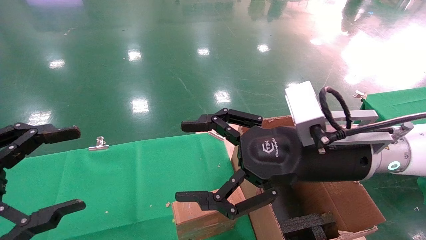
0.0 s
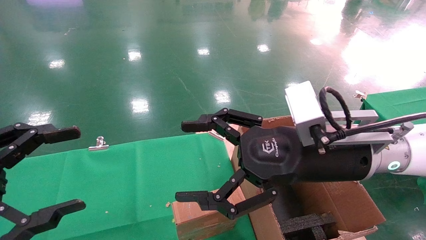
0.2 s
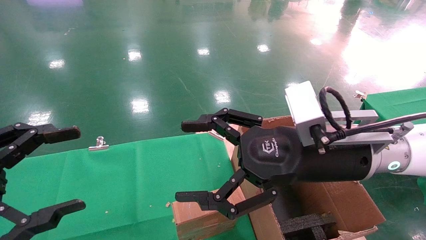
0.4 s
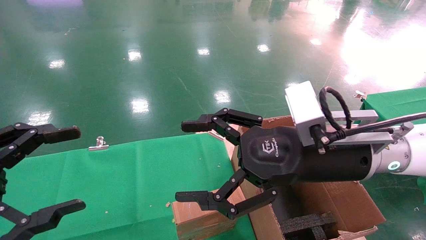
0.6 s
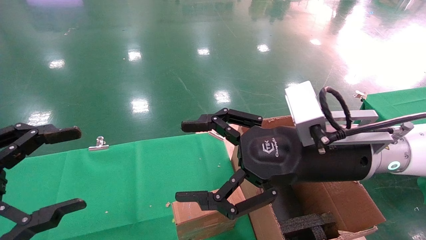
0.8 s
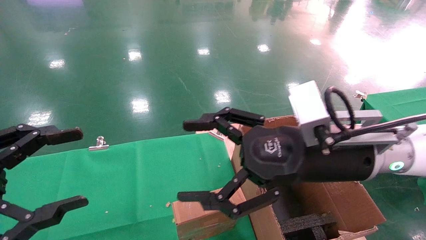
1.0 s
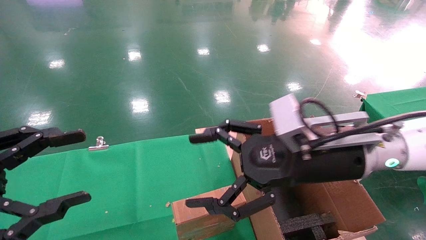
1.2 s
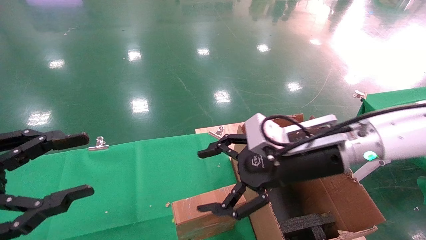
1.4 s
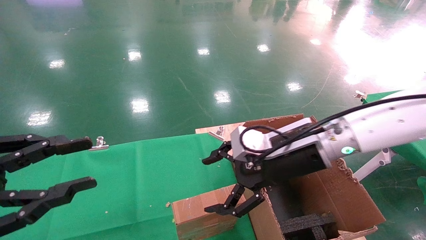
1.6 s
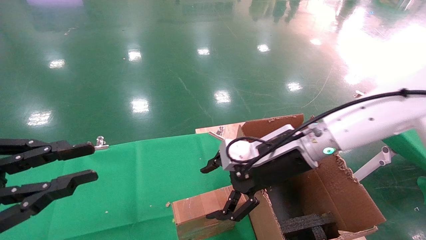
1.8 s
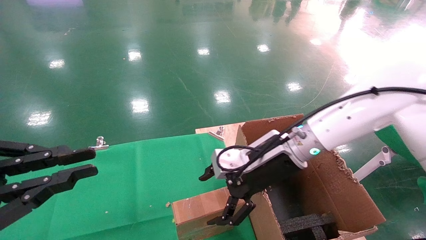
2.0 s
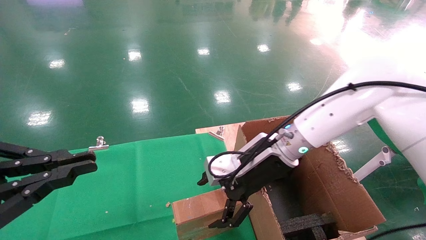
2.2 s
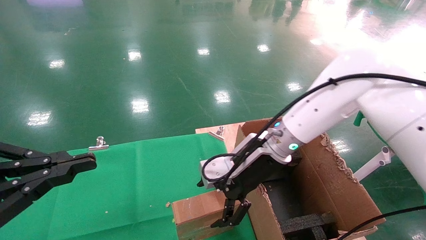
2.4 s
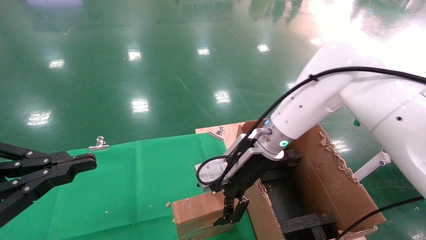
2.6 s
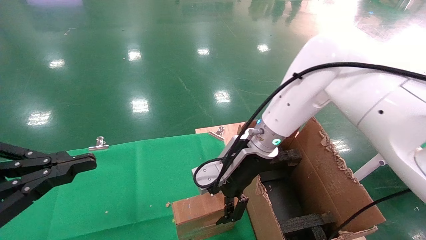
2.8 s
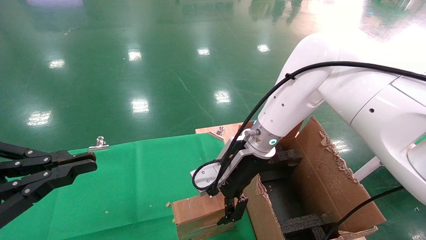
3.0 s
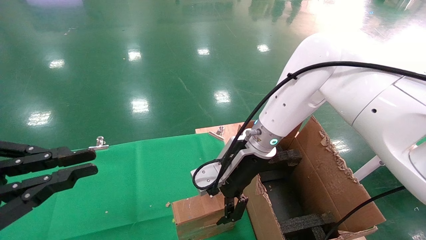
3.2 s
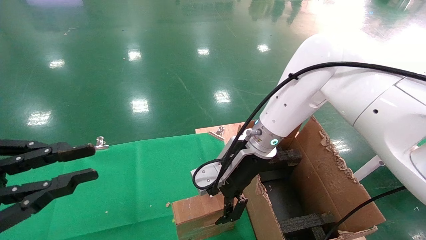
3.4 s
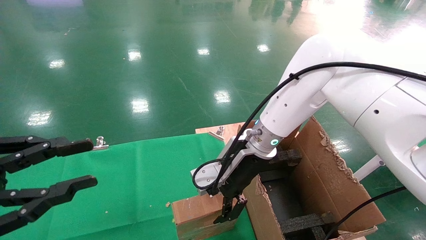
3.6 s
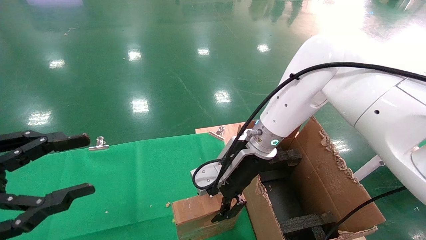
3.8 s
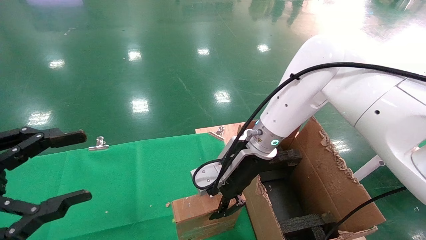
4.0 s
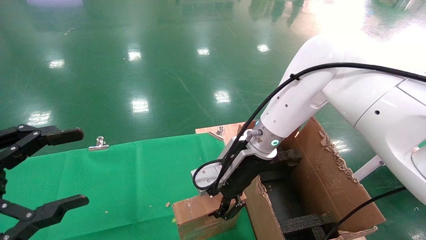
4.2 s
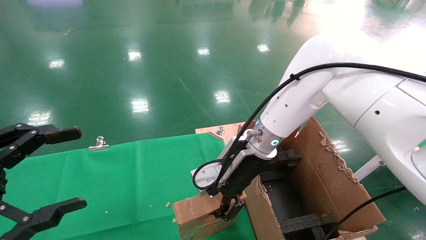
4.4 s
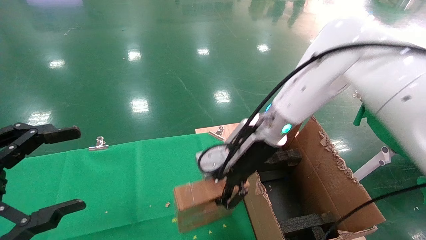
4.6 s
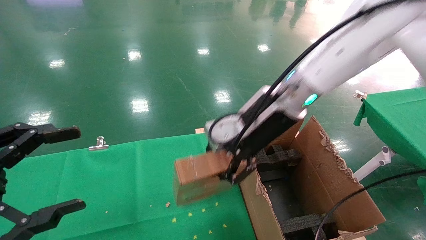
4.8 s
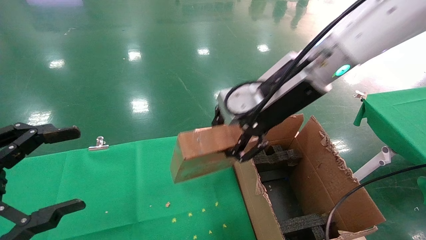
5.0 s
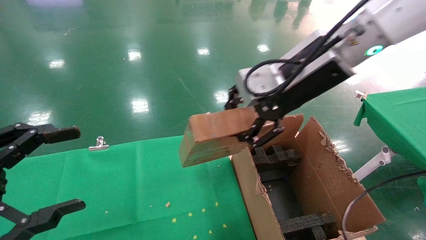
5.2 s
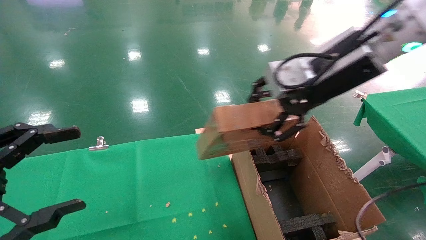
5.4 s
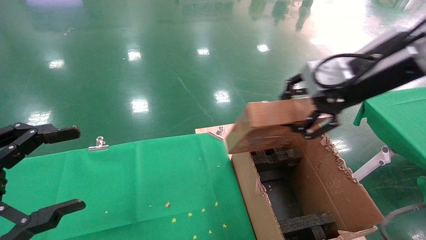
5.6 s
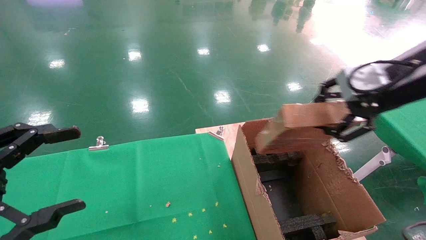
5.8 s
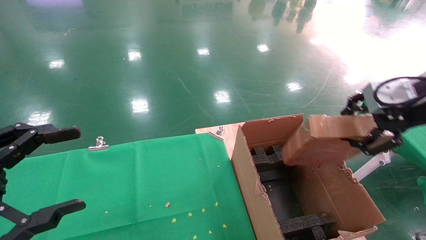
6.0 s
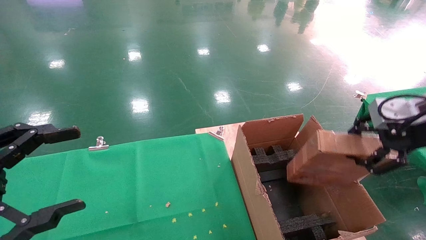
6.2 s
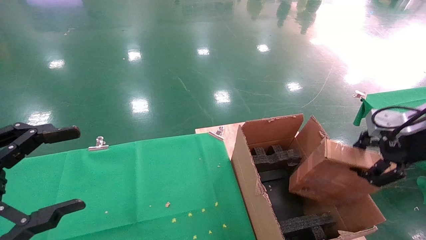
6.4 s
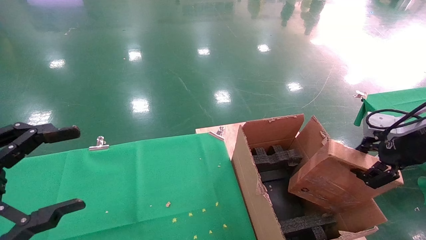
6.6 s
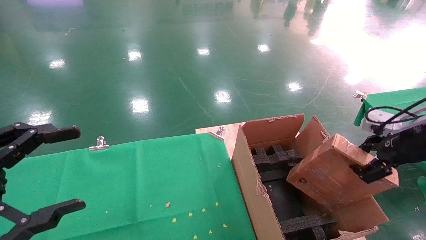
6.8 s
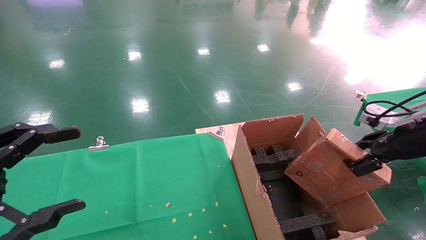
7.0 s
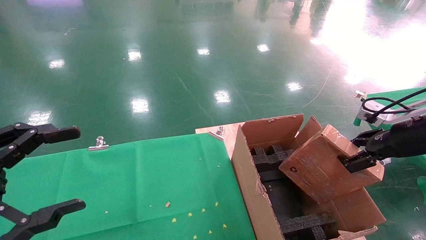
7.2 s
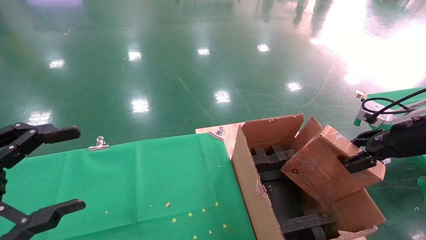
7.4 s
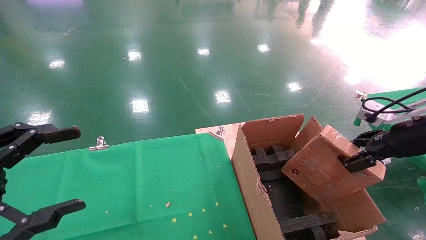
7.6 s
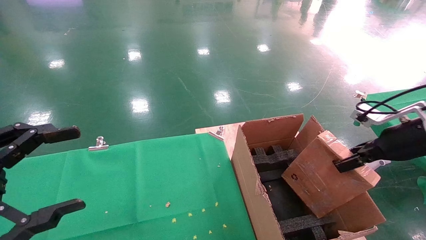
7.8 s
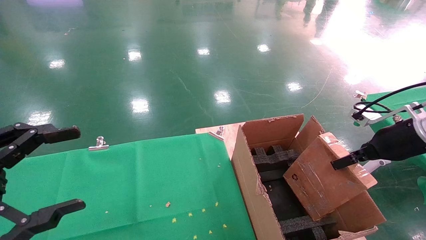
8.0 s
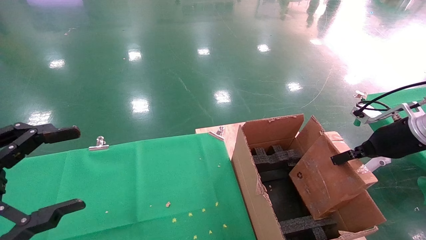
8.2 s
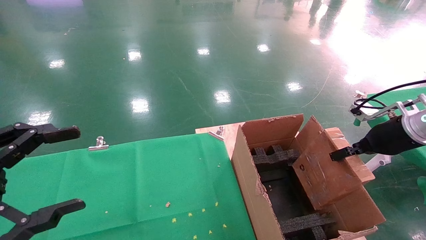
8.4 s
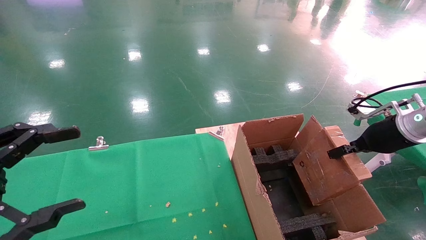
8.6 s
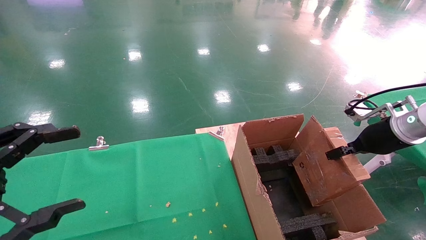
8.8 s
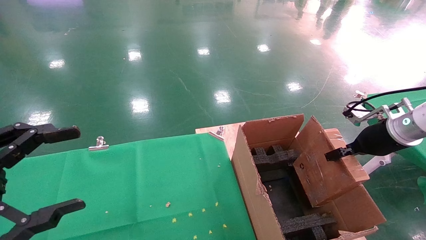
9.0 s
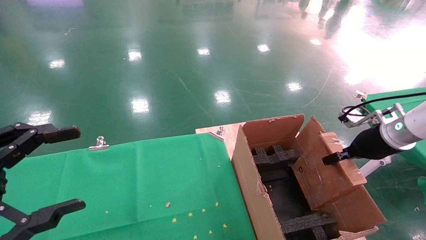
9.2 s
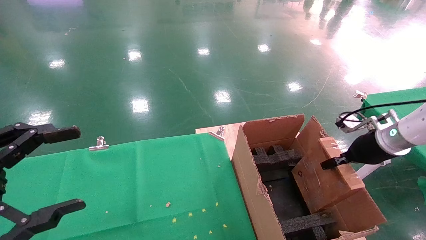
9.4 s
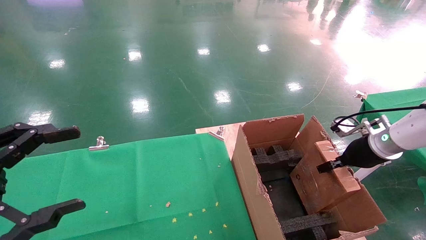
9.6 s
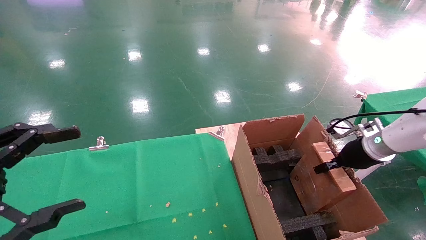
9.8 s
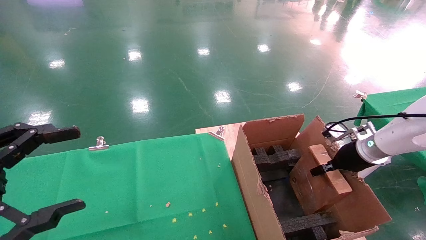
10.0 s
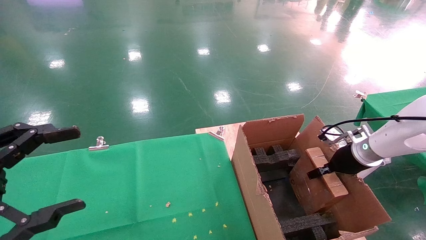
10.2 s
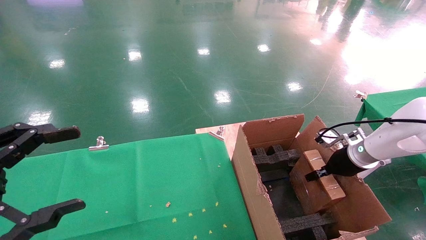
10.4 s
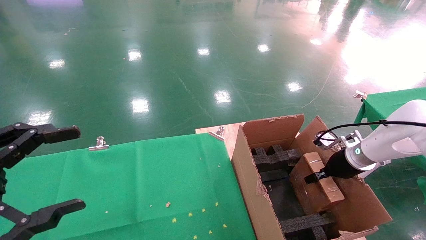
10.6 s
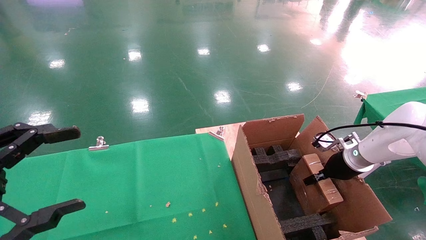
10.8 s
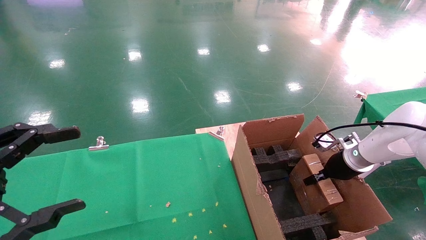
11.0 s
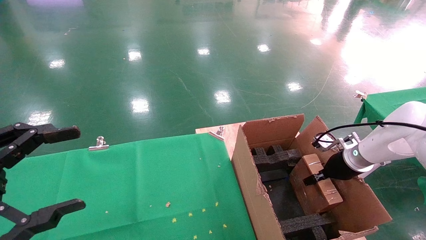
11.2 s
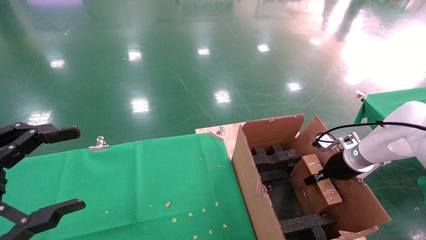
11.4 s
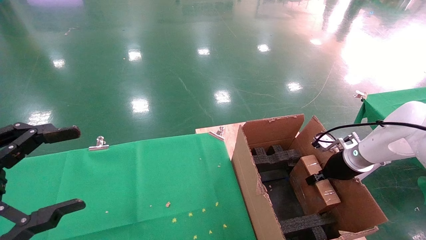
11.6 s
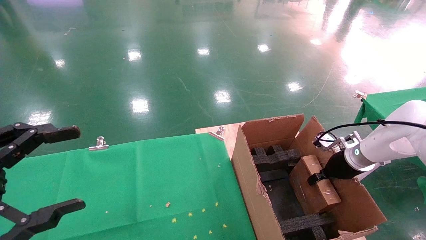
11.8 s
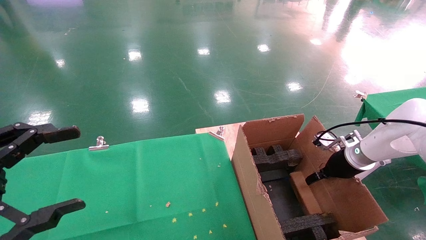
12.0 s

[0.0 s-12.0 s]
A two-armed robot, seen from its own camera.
Task of the whole recording: using a robotic arm to pick up a cardboard box and palace it the carton.
Step, 1.2 to 4.2 s: Pick up the mouse and the power cord paper box.
0.0 to 1.6 s: The left gripper closes up; the right gripper heads forward, covering about 5 cm.
1.6 to 3.0 s: The left gripper closes up. Meanwhile the right gripper heads forward and to the left, covering approximately 10 cm.
3.0 to 4.4 s: The right gripper closes its fingers, while the left gripper opens up.
4.4 to 6.0 s: The right gripper heads to the right, backward and upward, covering approximately 30 cm.
6.0 to 7.6 s: The right gripper heads downward and to the right, covering about 10 cm.
7.6 to 9.0 s: The right gripper moves forward, roughly 5 cm.
9.0 to 10.4 s: The right gripper heads downward and forward, covering approximately 10 cm.
10.4 to 12.0 s: The right gripper opens up.

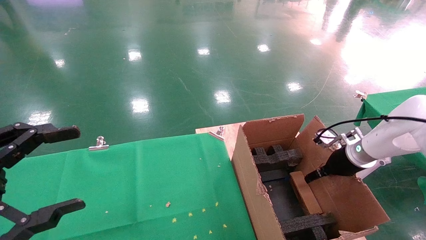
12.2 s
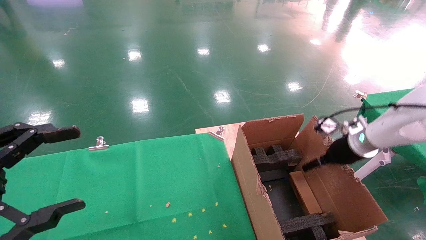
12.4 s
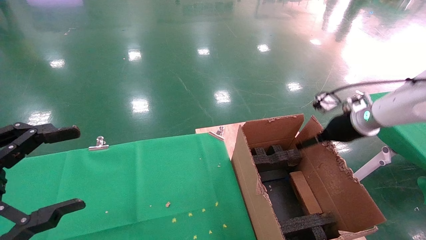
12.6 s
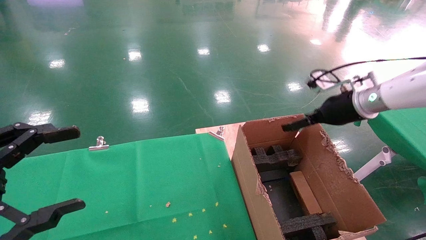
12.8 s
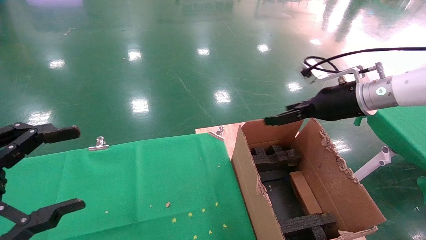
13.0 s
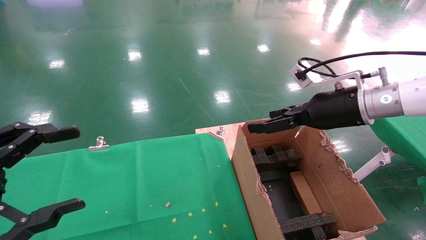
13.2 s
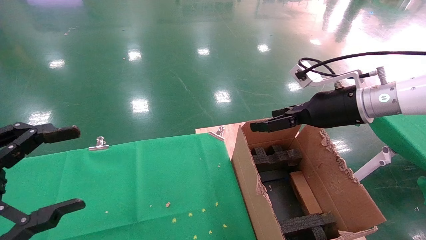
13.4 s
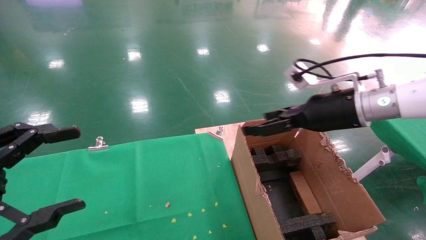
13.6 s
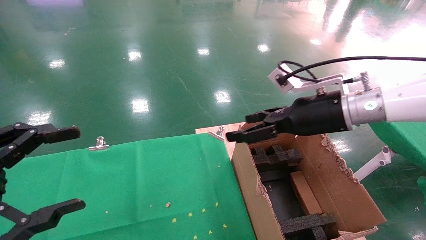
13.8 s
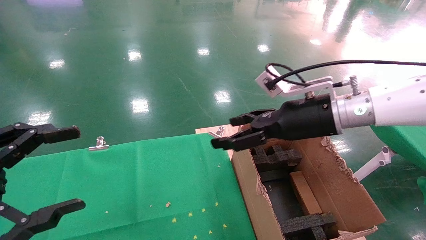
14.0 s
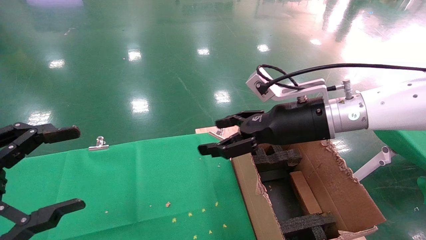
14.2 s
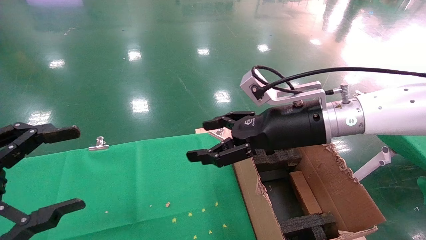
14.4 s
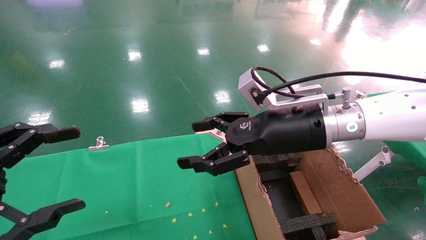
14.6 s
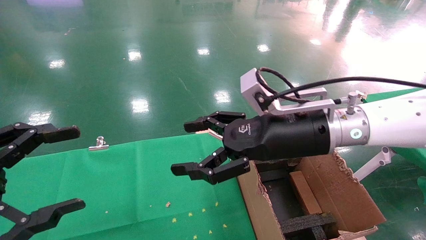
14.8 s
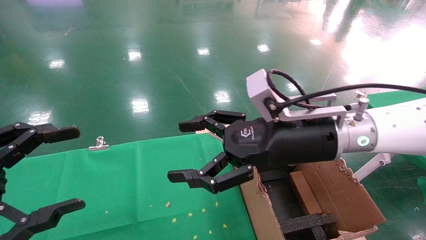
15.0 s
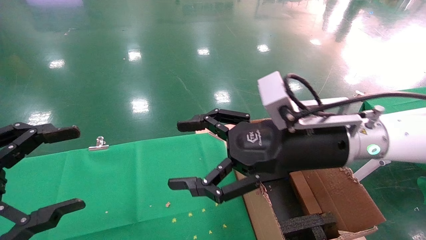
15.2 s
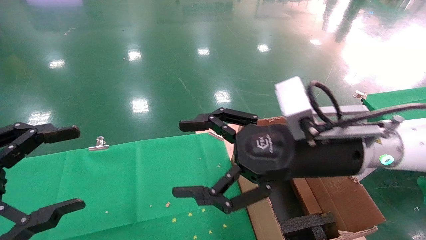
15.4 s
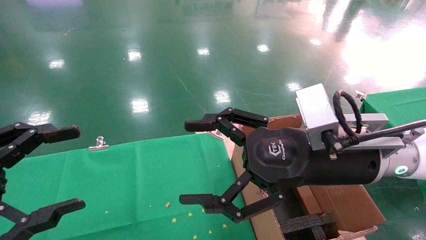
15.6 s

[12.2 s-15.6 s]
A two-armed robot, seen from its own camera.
Task of the whole recording: using a robotic arm to pick up a cardboard box and palace it the carton.
12.2 to 13.8 s: The right gripper heads to the left, upward and backward, covering about 20 cm, and opens up.
13.8 to 15.6 s: The right gripper heads backward and to the left, covering roughly 10 cm.

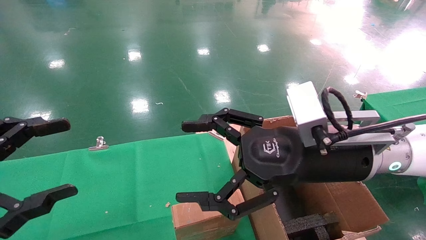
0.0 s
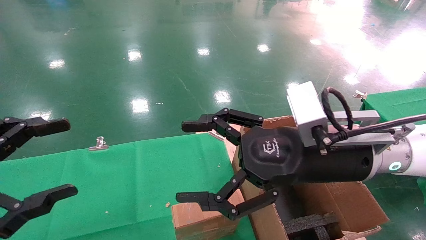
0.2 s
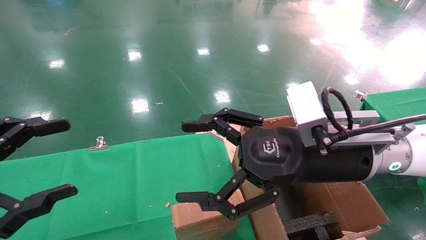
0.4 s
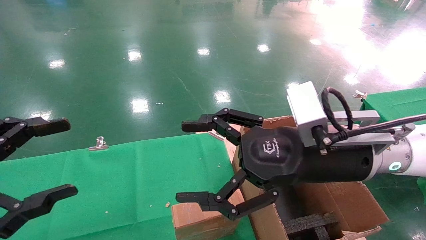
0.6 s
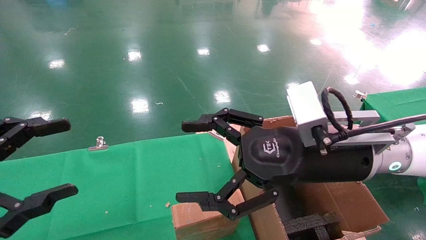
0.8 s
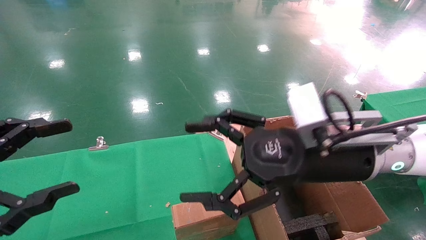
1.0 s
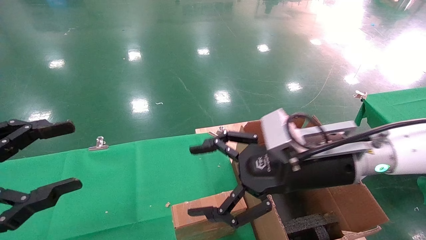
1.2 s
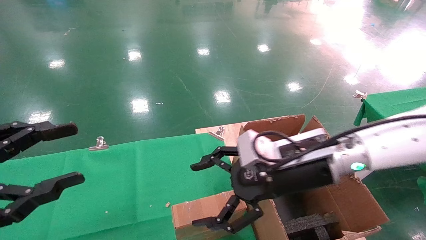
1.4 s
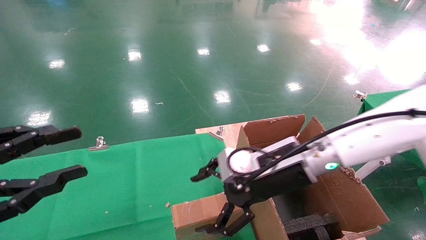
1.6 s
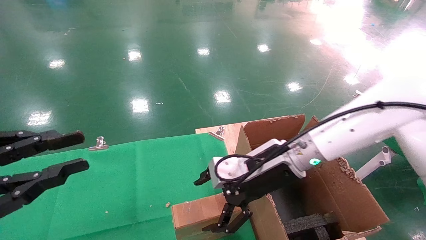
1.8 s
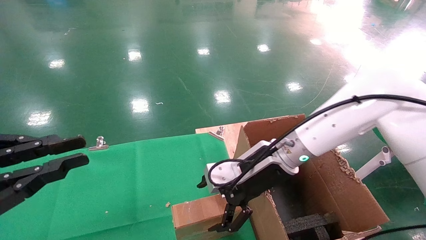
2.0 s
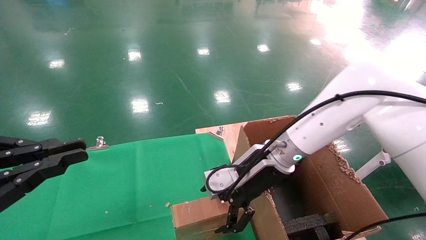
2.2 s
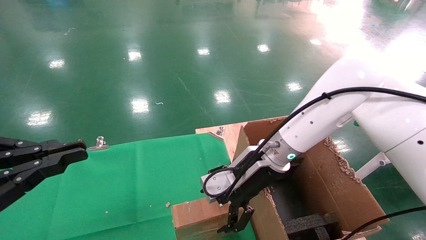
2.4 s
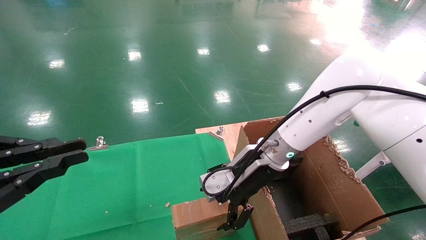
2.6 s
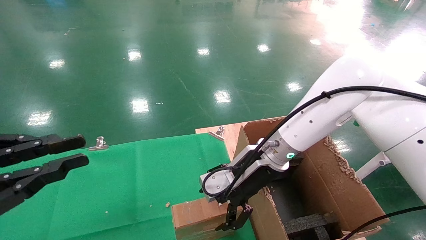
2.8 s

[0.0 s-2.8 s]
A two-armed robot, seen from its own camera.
Task of the whole recording: using a robotic arm to pick up a cardboard box and palace it the carton.
0.0 to 1.4 s: The right gripper goes approximately 5 cm forward.
1.4 to 2.8 s: The left gripper closes. The right gripper shifts some 5 cm forward.
